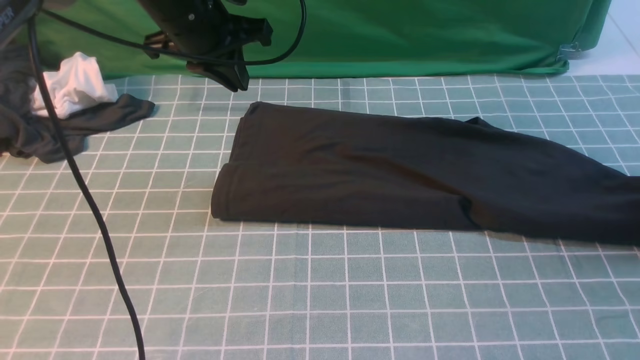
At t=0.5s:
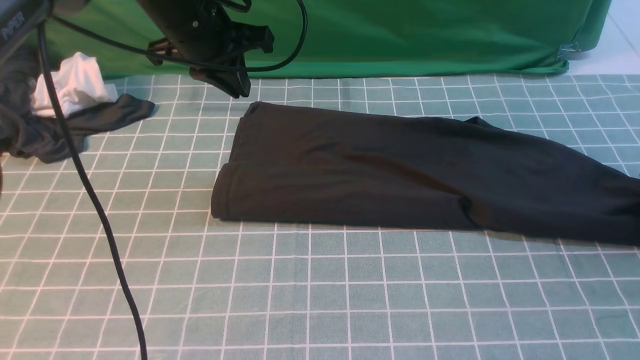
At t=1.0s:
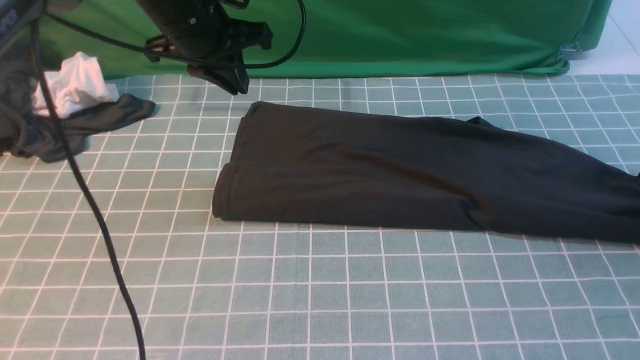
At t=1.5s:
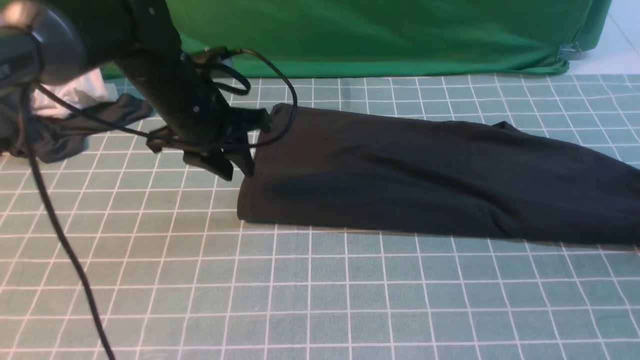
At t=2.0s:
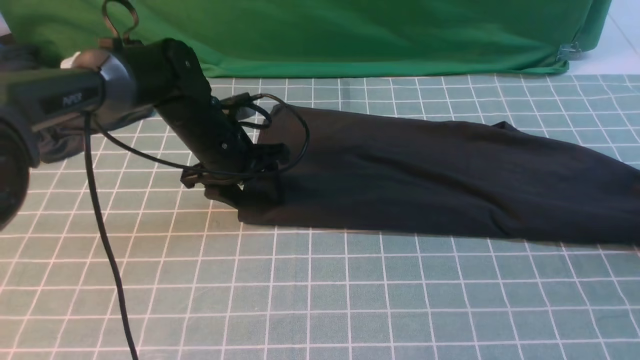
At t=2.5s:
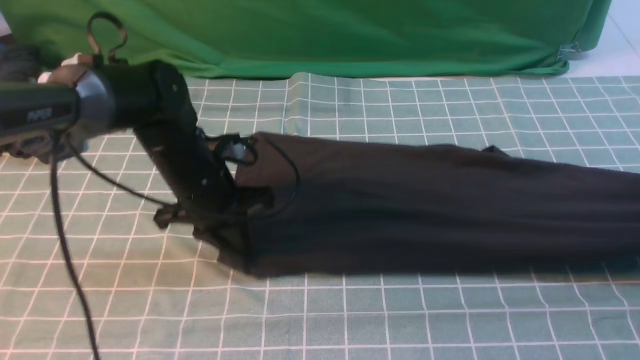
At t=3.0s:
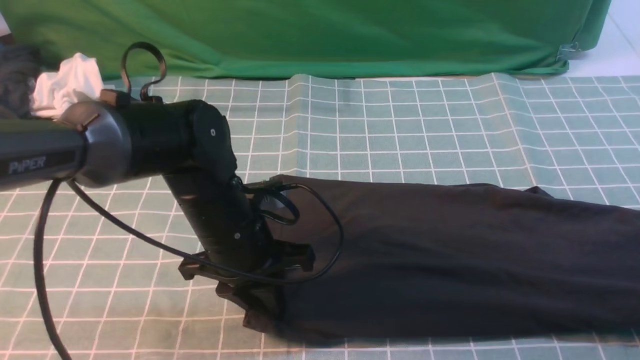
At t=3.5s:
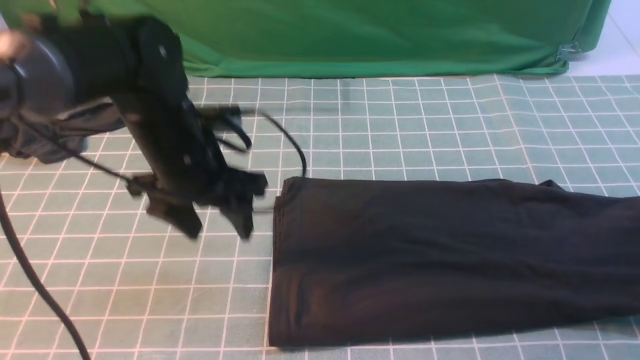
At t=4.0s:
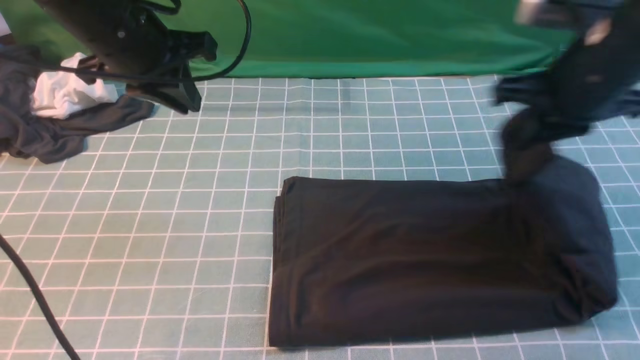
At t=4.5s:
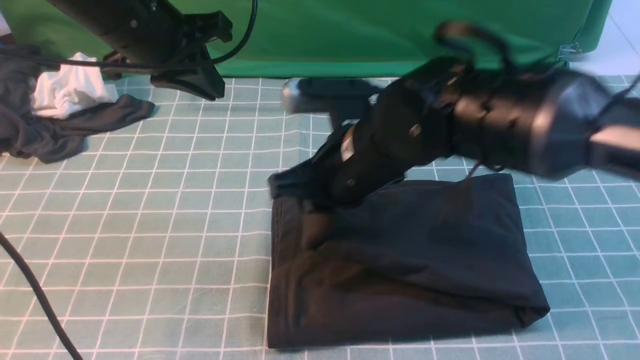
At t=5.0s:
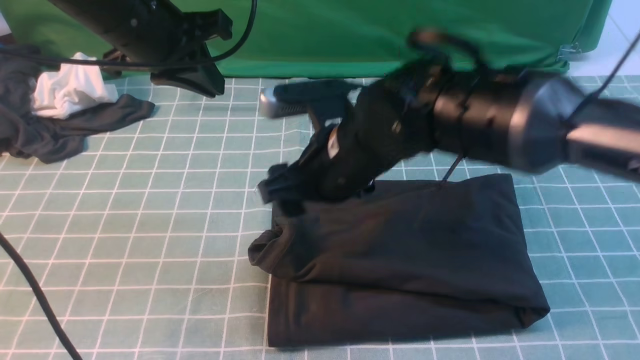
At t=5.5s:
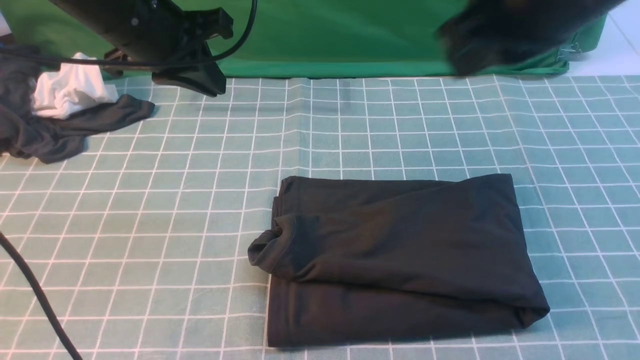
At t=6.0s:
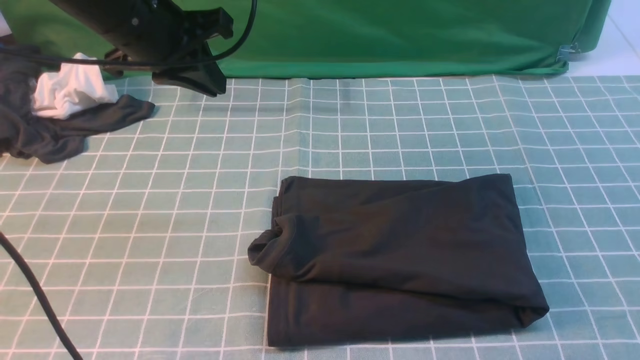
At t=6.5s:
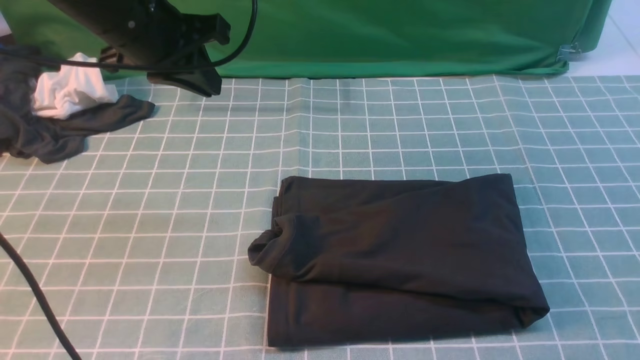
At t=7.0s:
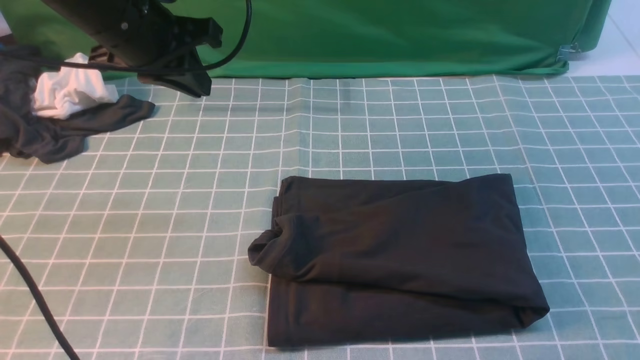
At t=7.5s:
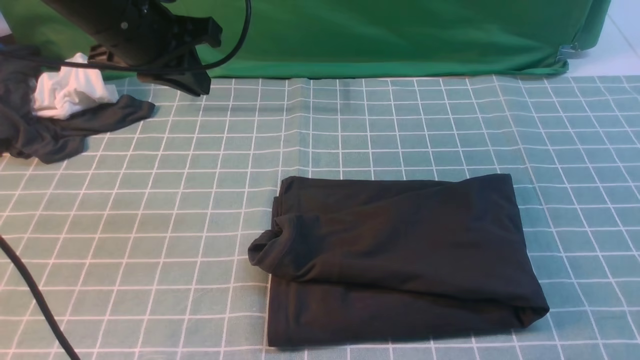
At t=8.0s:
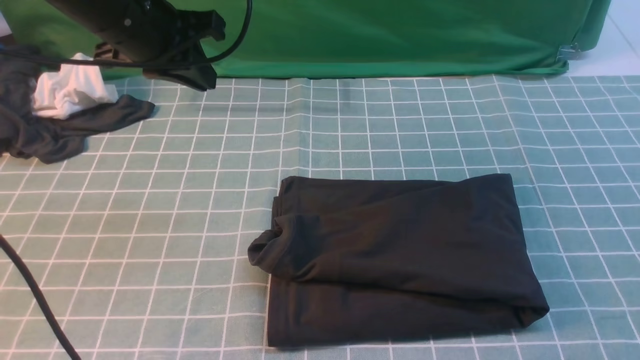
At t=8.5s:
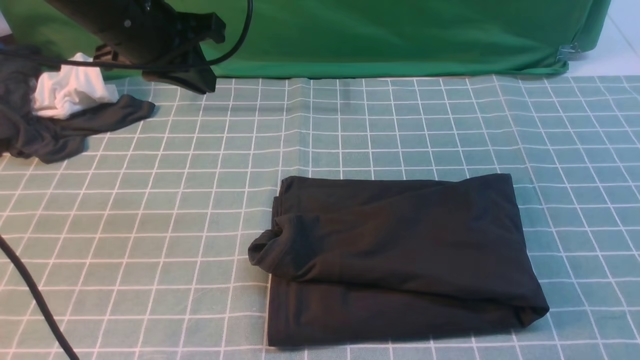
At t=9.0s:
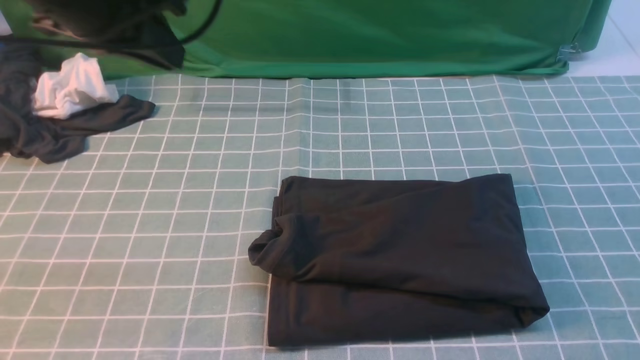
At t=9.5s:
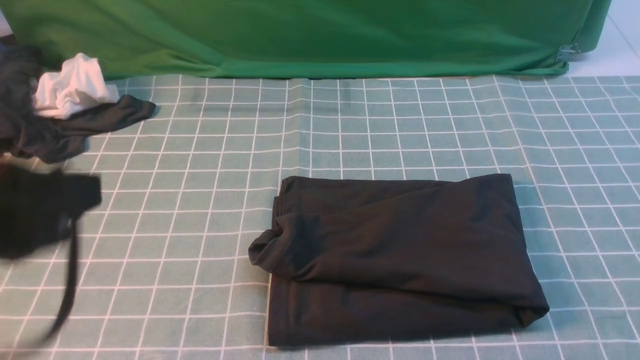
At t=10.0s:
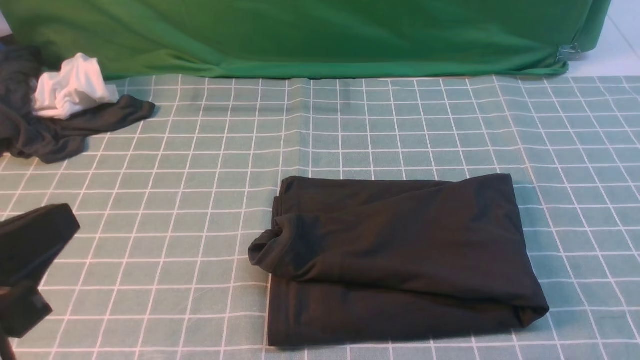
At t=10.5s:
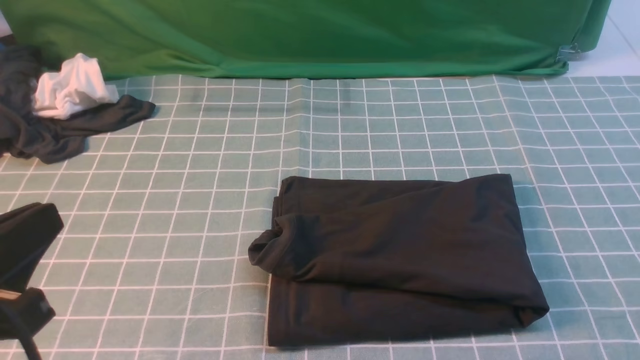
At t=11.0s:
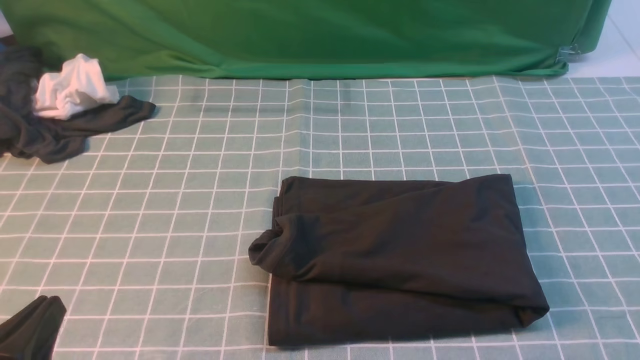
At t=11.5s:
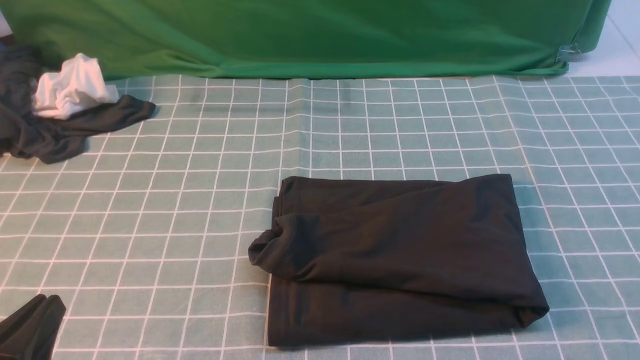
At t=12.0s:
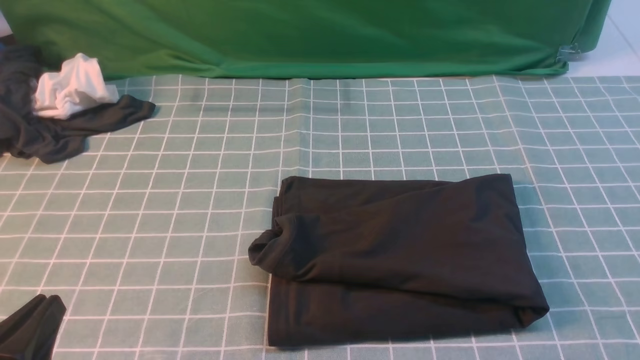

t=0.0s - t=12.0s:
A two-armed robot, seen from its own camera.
Step, t=0.0s - t=3.0s: use the right arm to clamp the right edge of the fabric.
Step, t=4.0s - t=5.0s: use the right arm to drag the right edge of the fabric to the left and folds it over the left edge.
t=0.0s - t=2.0s: The left gripper travels downward by about 15 cm, and opens its fingers. Meanwhile the right gripper closes its fingers.
t=2.0s - t=4.0s: The right gripper heads to the left and upward, covering about 30 cm. Meanwhile the left gripper goes approximately 15 cm upward, and closes.
t=4.0s - t=6.0s: The right gripper is displaced backward and upward by some 35 cm, and opens and closes again.
t=8.0s - t=10.0s: The left gripper moves backward, roughly 30 cm.
t=10.0s - t=12.0s: The left gripper is displaced downward by some 10 cm.
